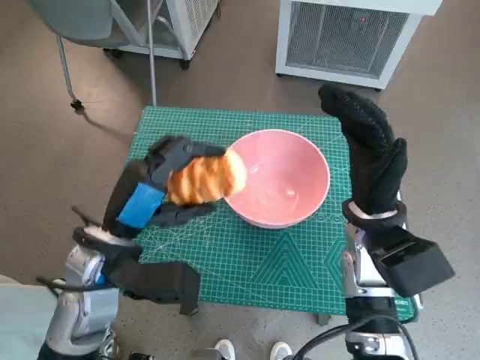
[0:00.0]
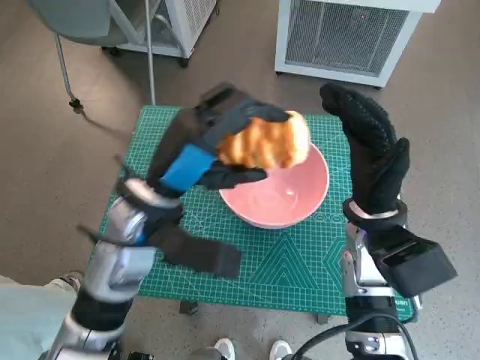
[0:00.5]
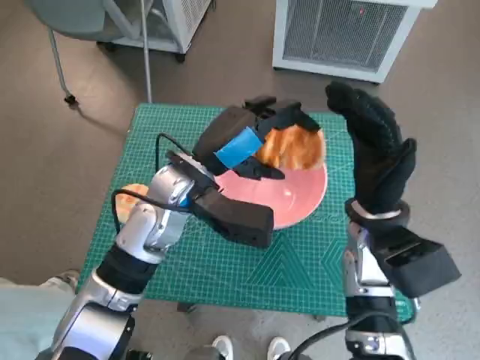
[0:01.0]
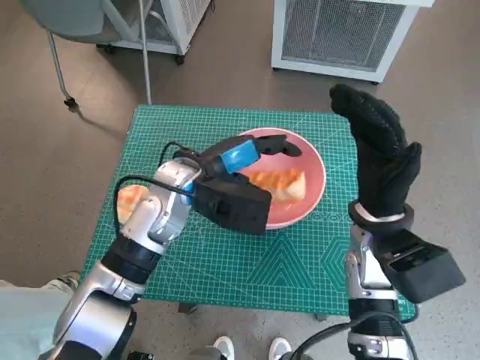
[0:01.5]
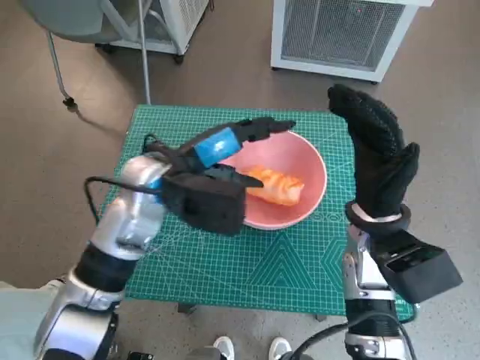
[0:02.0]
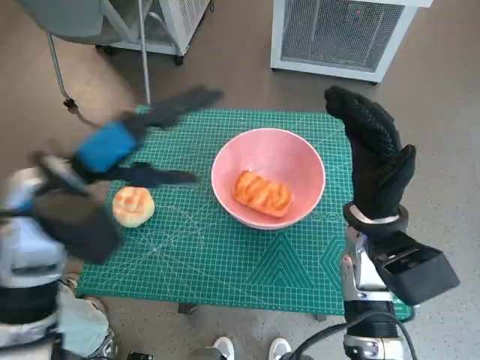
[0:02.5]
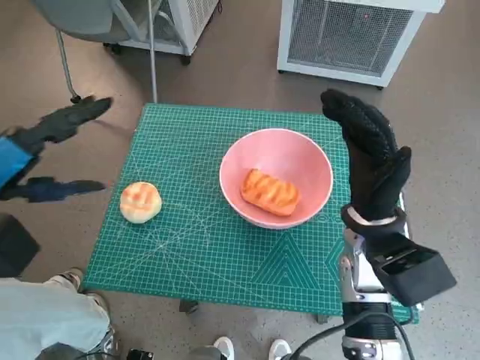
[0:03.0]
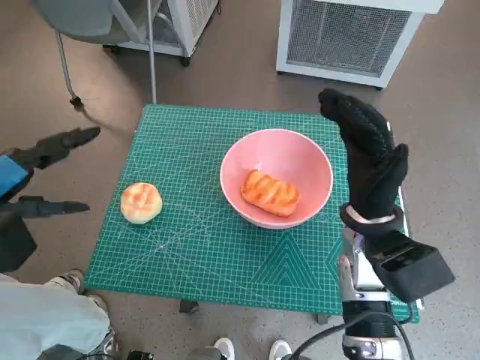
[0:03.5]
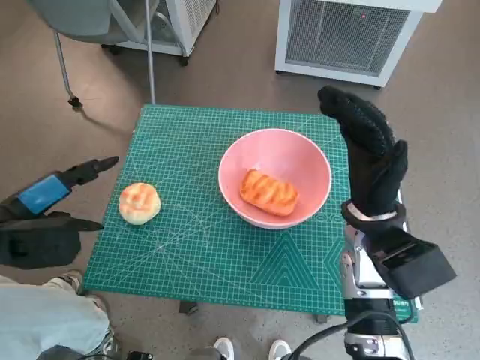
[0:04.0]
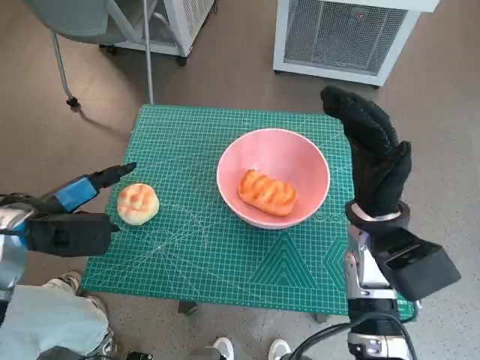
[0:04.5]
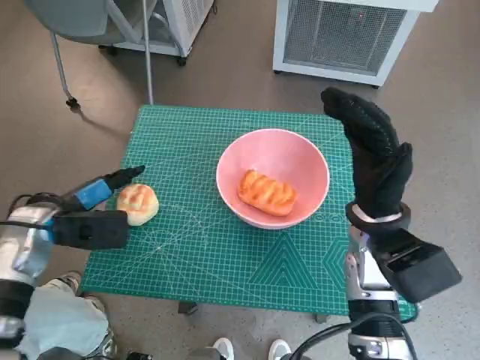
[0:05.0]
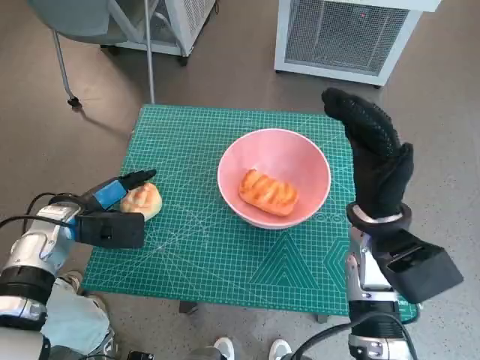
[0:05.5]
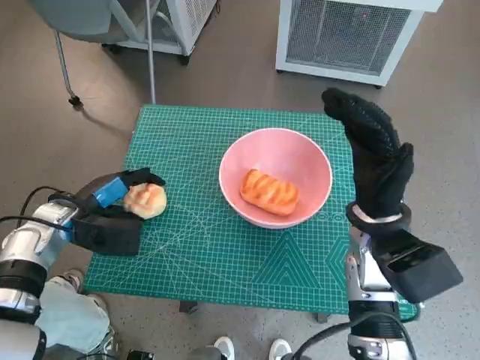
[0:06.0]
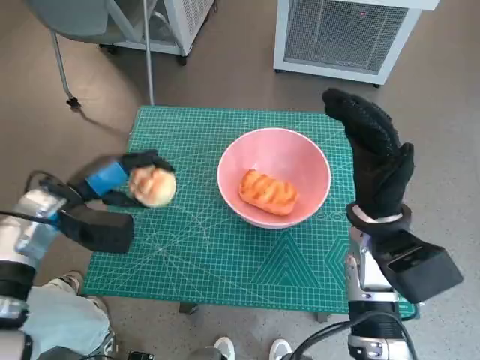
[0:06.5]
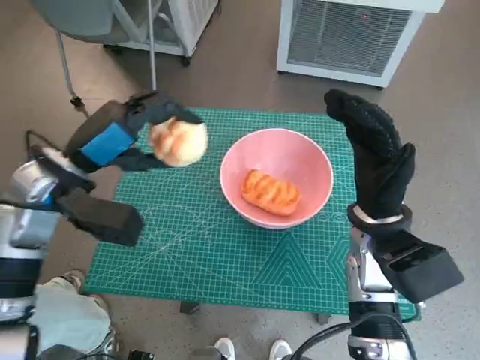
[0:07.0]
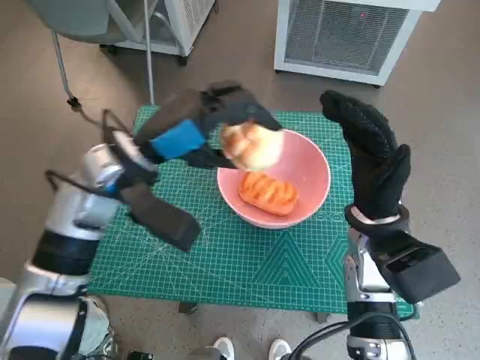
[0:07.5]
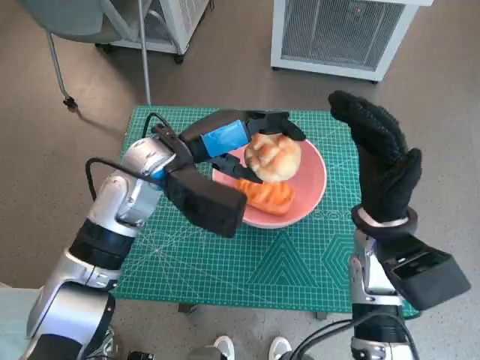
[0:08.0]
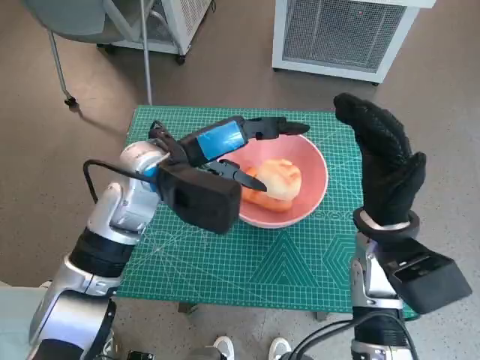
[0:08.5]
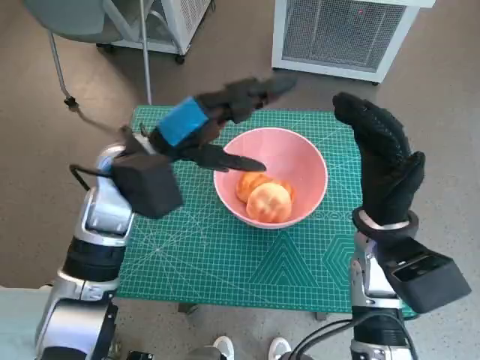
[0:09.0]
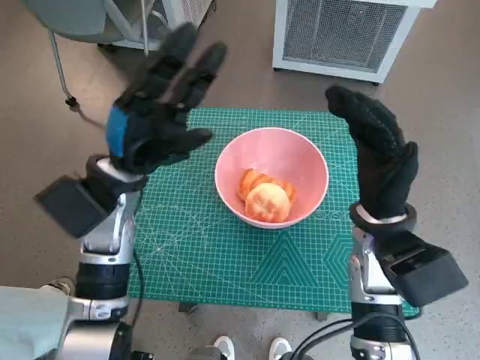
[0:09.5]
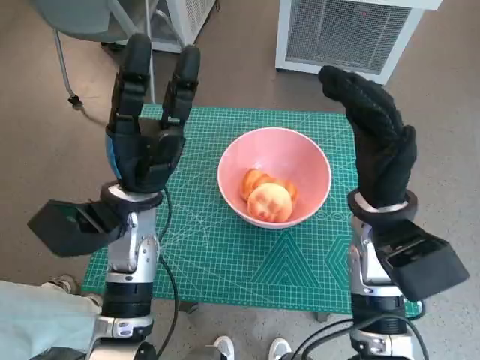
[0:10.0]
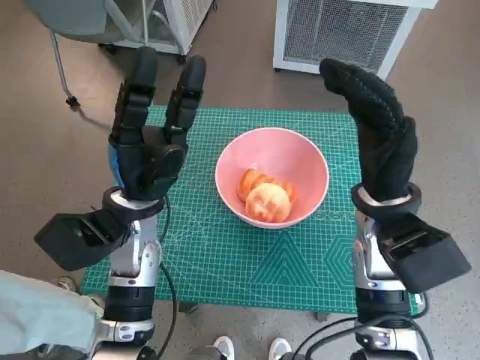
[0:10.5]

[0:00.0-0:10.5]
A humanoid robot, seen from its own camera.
Task of the whole recording: Push the bowl to the center of the table and put the bread into the bowl.
Step, 0:00.0 to 0:01.5: Place the long bread in pink bowl with left hand.
Step, 0:02.0 to 0:05.5: Grasp the round bread with left hand.
Step, 0:06.0 to 0:08.5: Place the round bread in pink bowl with left hand.
0:00.0 to 0:02.0: The left hand shifts about 10 cm forward and to the right.
0:02.0 to 0:04.0: The left hand moves to the left, about 20 cm.
0:04.0 to 0:06.5: The left hand travels forward and downward by about 10 cm.
0:06.5 to 0:08.5: The left hand travels to the right and upward by approximately 20 cm.
0:08.5 to 0:10.5: The left hand moves downward, roughly 5 cm.

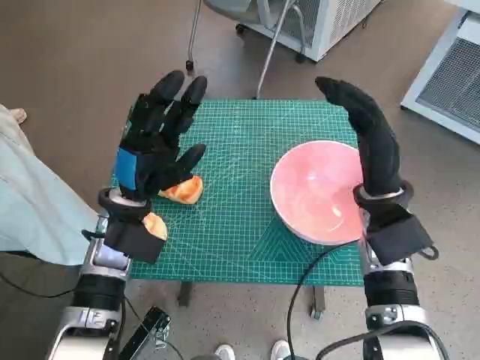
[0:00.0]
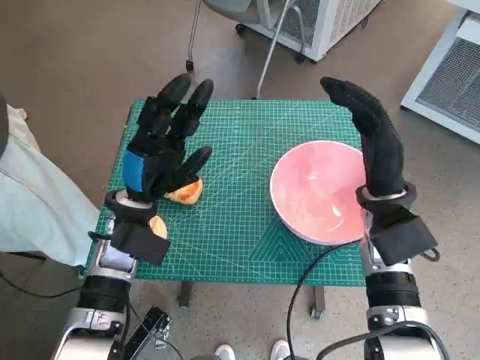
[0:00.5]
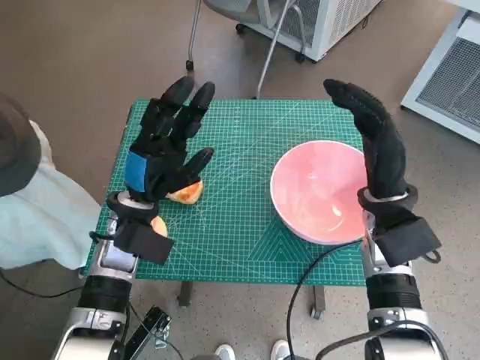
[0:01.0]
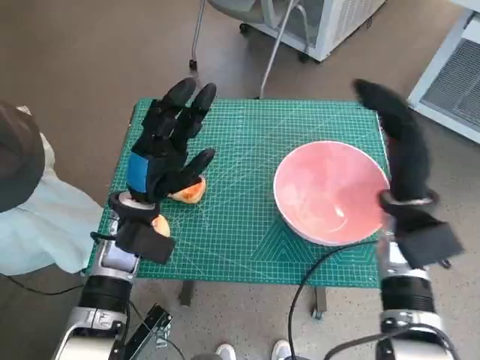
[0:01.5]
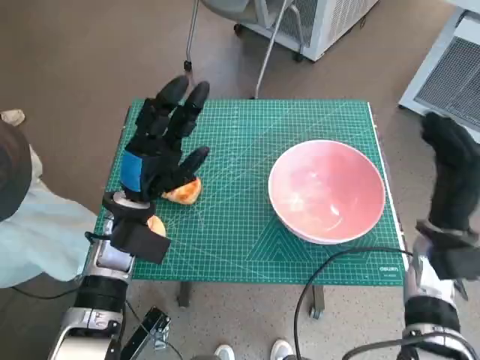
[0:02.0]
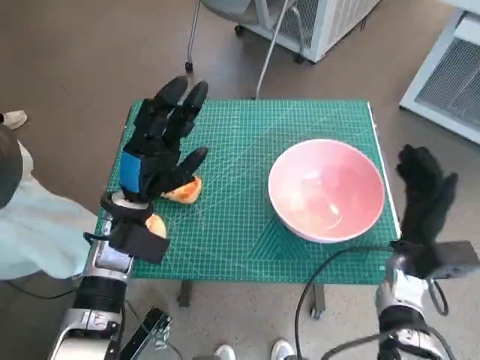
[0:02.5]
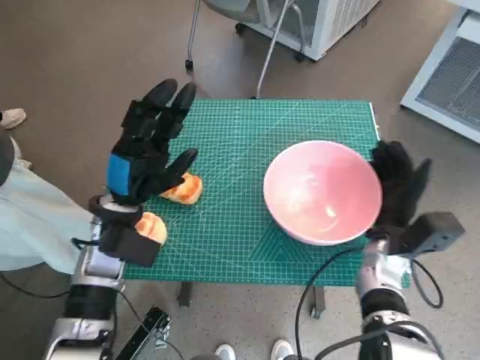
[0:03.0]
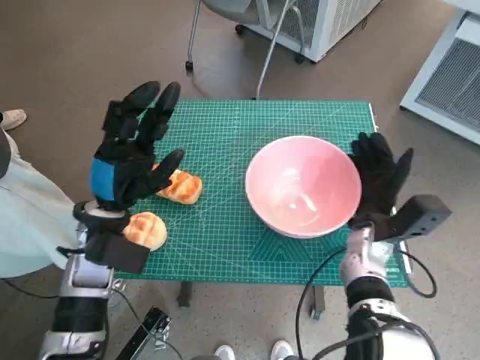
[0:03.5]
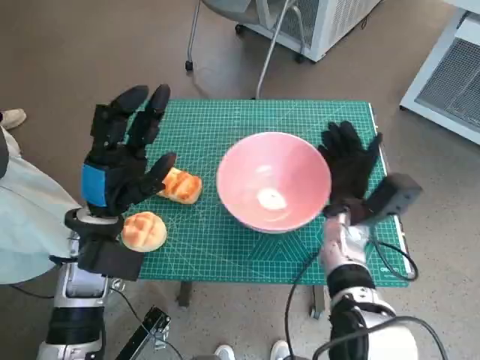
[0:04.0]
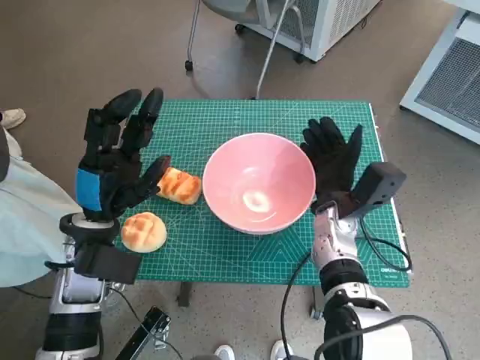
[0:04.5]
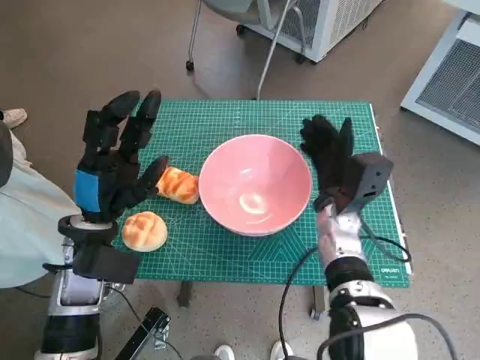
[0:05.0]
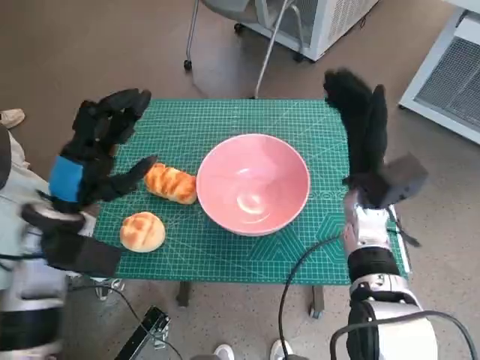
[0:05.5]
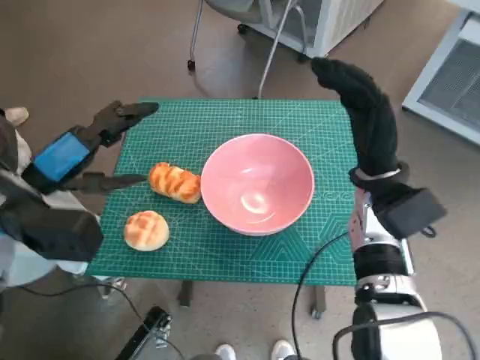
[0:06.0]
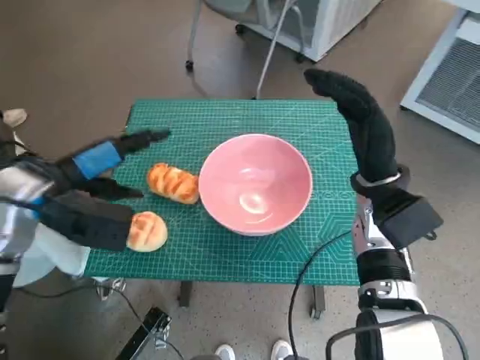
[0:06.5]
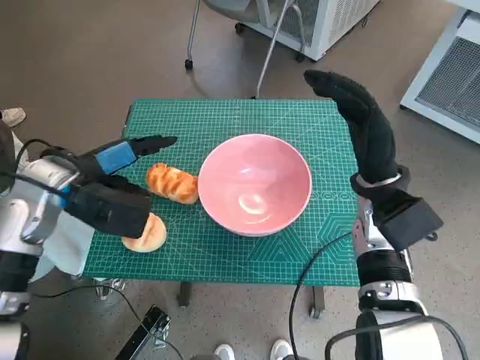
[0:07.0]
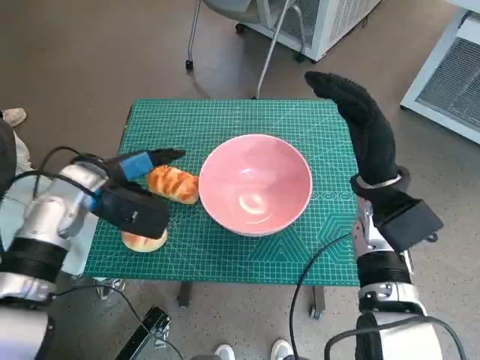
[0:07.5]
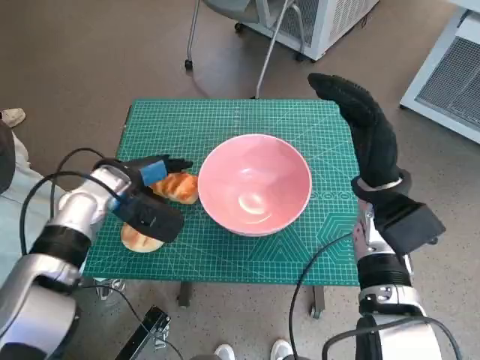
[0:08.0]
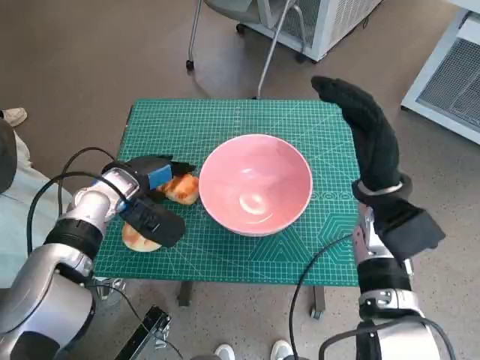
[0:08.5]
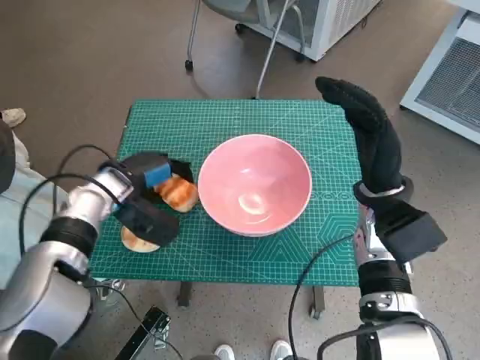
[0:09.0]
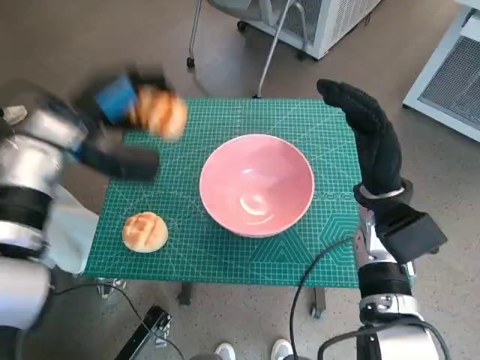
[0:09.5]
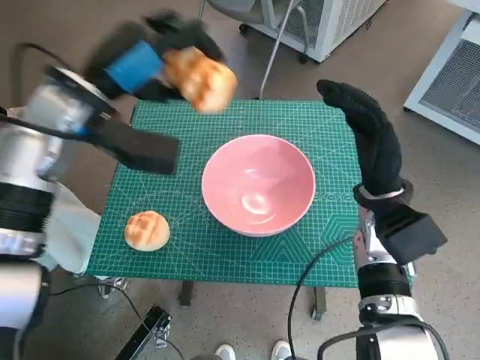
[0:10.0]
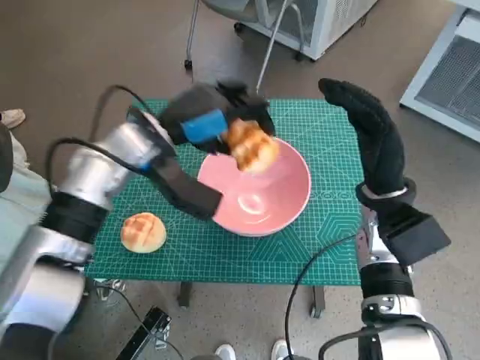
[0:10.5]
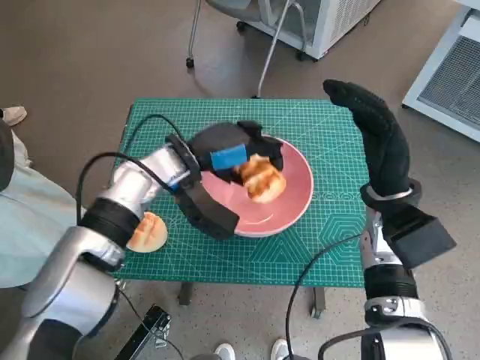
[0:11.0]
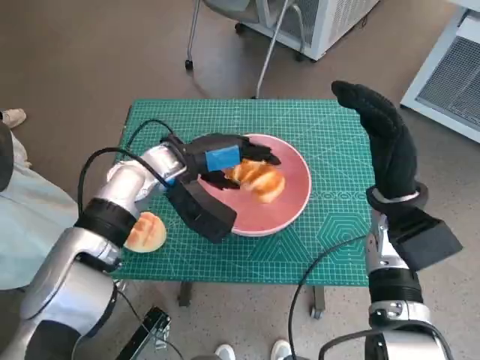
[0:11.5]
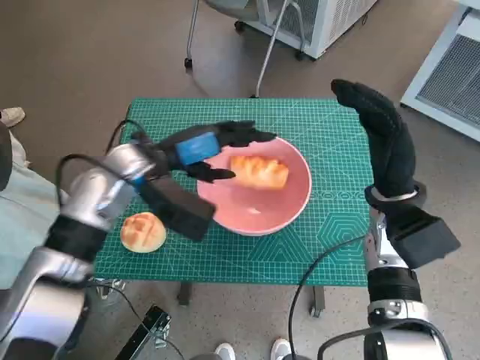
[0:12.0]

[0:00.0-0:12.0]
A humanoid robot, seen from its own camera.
Task of the whole recording: Push the bowl to the center of the table and put the bread into the bowl.
Step, 0:00.0 to 0:05.0: Move the pink bowl to the center of table with right hand.
Step, 0:05.5 to 0:08.5: Grasp the long bread with left hand.
0:02.0 to 0:04.0: The right hand is displaced to the left by approximately 10 cm.
0:04.0 to 0:06.0: The right hand heads upward, covering approximately 10 cm. The left hand is displaced upward and to the left by roughly 10 cm.
0:06.0 to 0:08.0: The left hand heads downward, forward and to the right, covering roughly 15 cm.
0:08.0 to 0:10.0: The left hand heads upward, covering approximately 15 cm.
0:10.0 to 0:12.0: The left hand travels downward by approximately 10 cm.

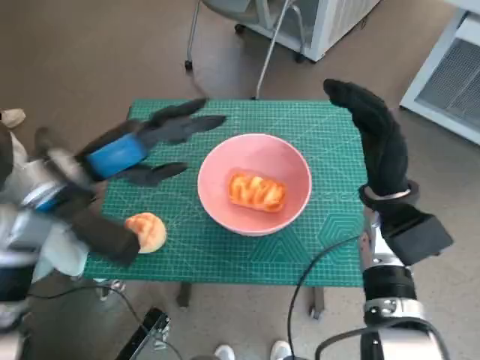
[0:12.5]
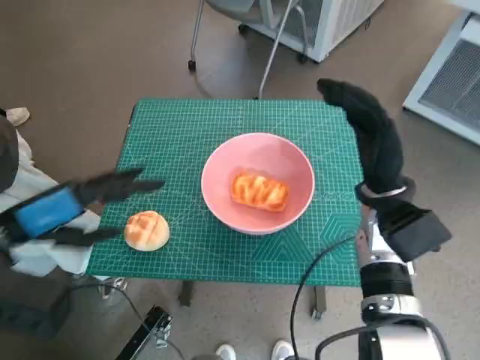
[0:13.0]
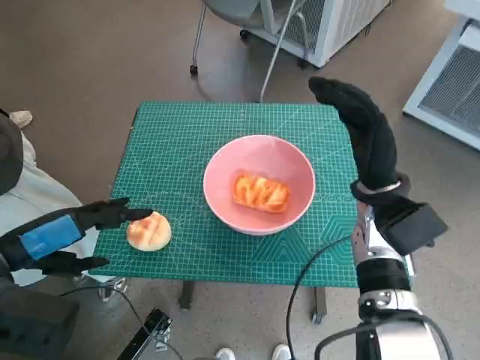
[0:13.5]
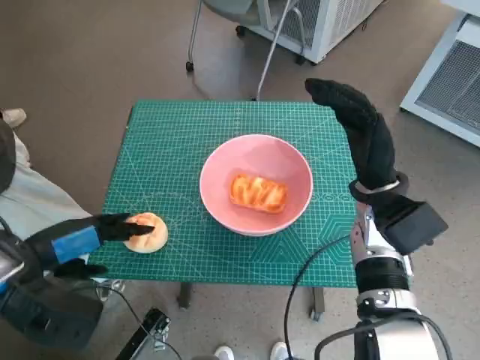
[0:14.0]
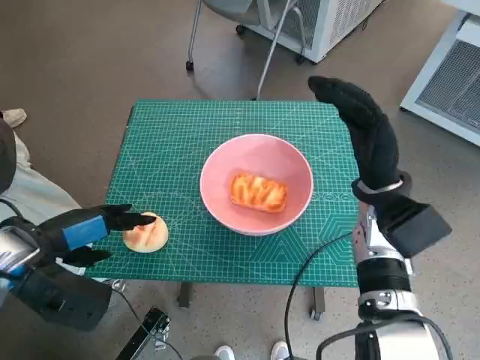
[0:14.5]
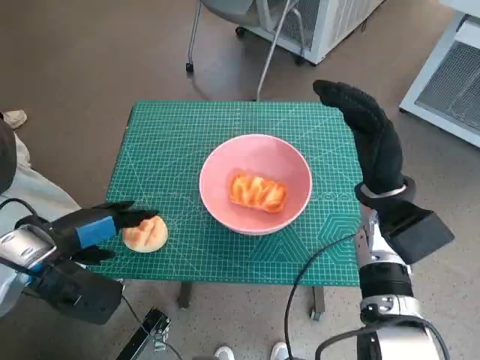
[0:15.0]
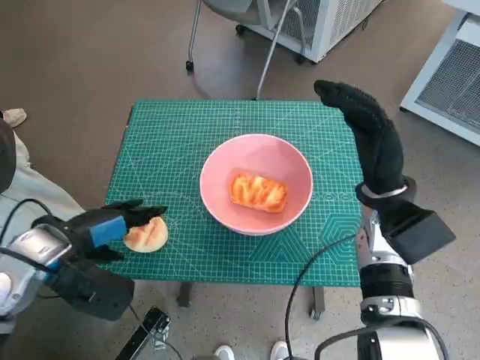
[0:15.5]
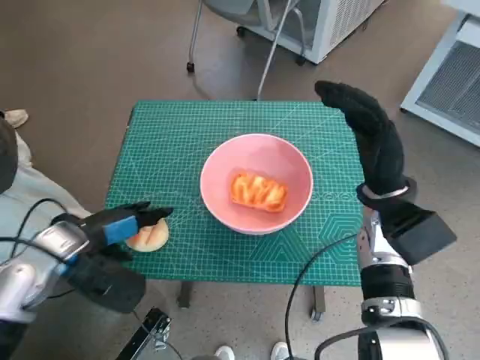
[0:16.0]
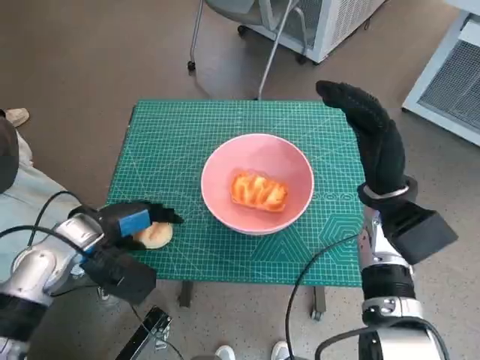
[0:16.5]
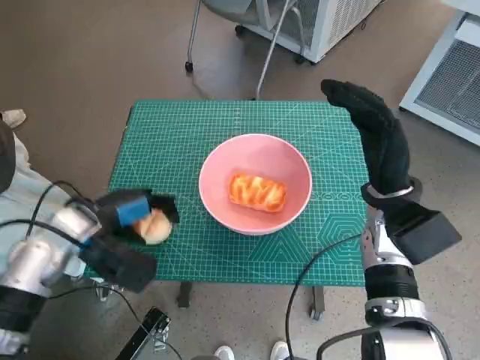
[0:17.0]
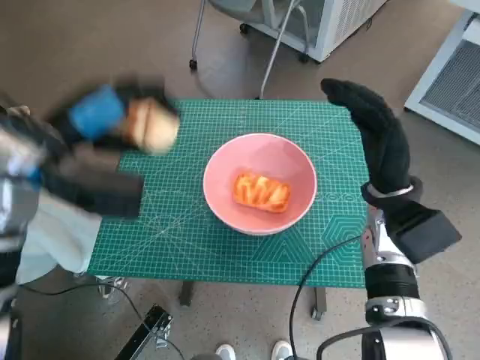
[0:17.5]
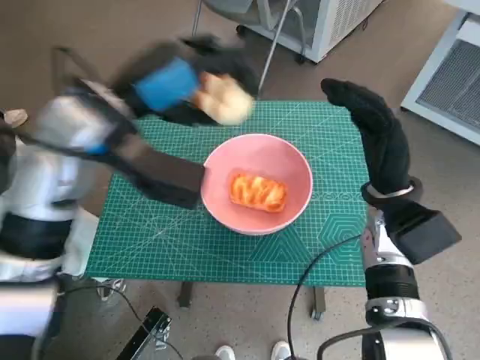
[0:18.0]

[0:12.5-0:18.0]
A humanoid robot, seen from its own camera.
Task of the whole recording: Push the bowl to the center of the table and put the bread into the bowl.
Step, 0:12.5 to 0:16.5: Grasp the round bread with left hand.
0:12.5 to 0:14.5: The left hand heads backward and to the left, covering some 10 cm.
0:14.5 to 0:16.0: The left hand changes place by some 5 cm.
0:16.0 to 0:18.0: The left hand is displaced upward and to the right by some 20 cm.
